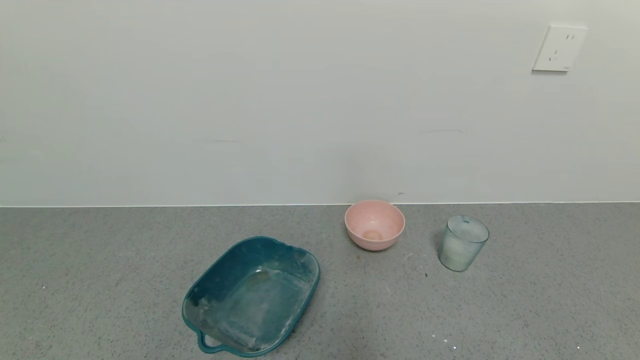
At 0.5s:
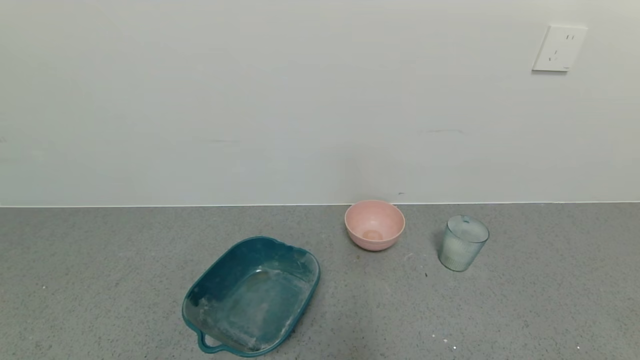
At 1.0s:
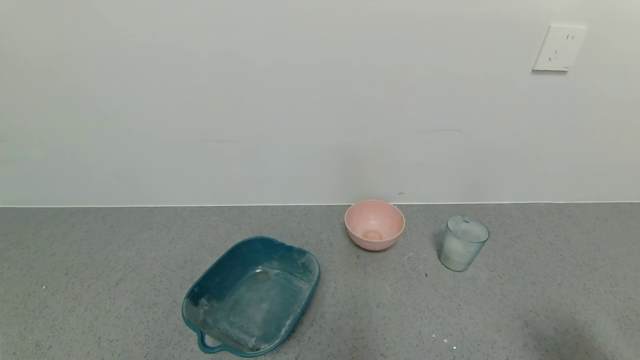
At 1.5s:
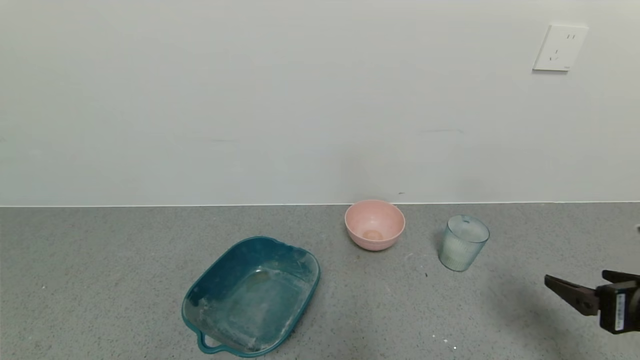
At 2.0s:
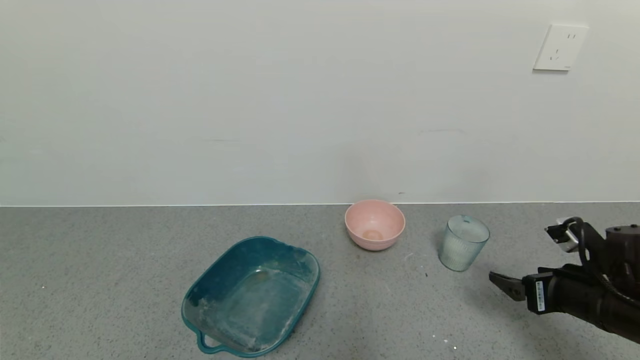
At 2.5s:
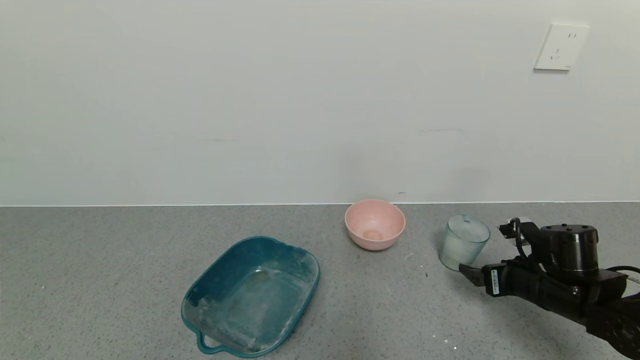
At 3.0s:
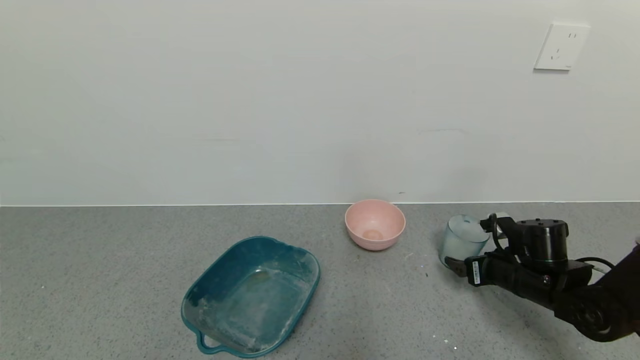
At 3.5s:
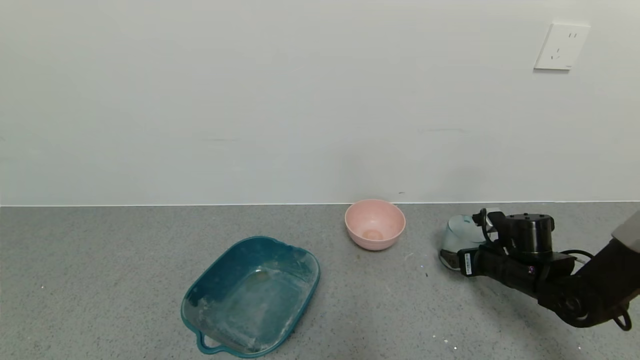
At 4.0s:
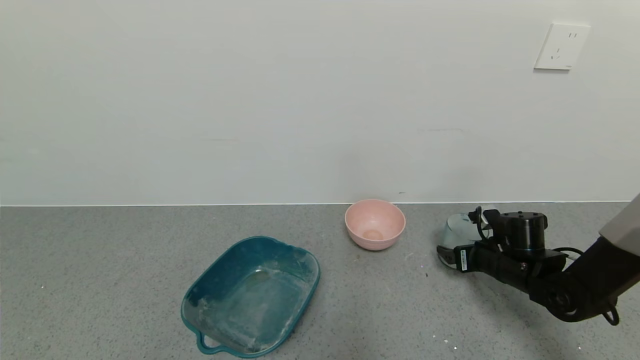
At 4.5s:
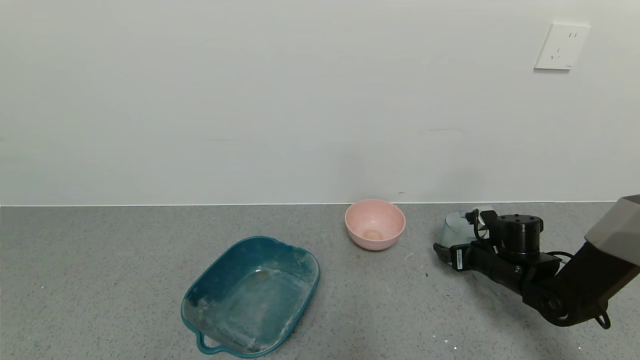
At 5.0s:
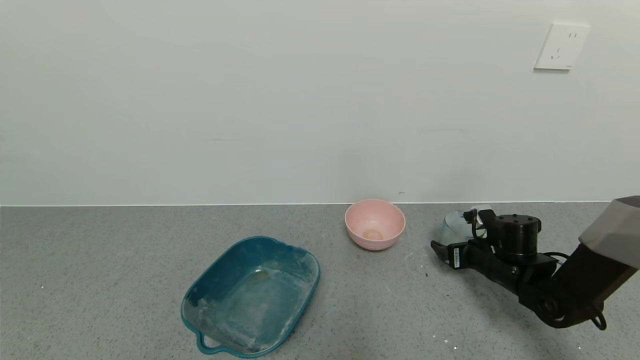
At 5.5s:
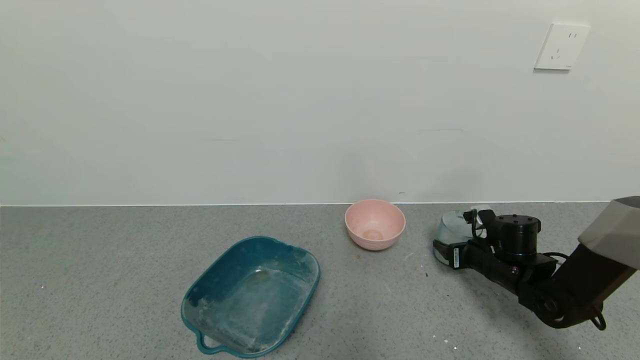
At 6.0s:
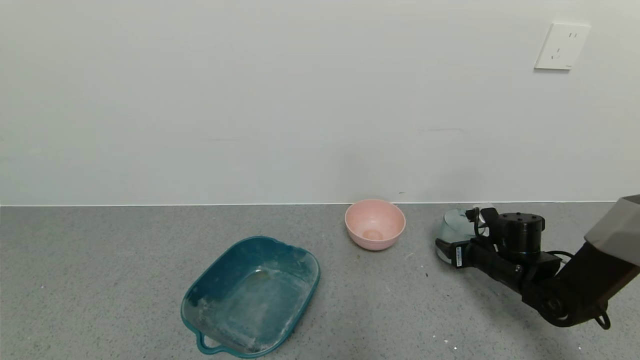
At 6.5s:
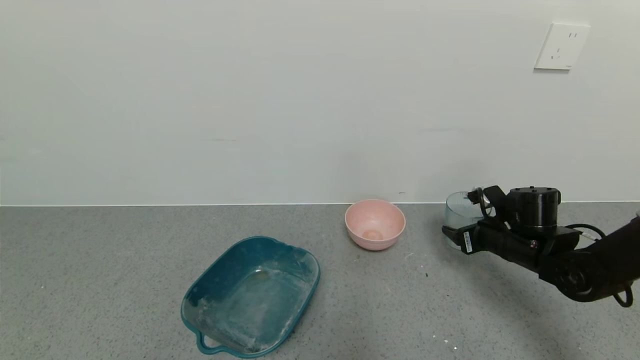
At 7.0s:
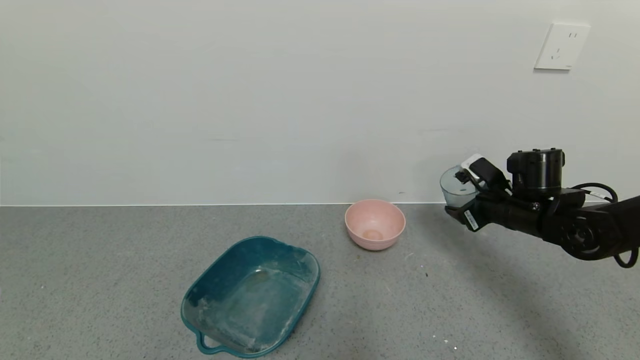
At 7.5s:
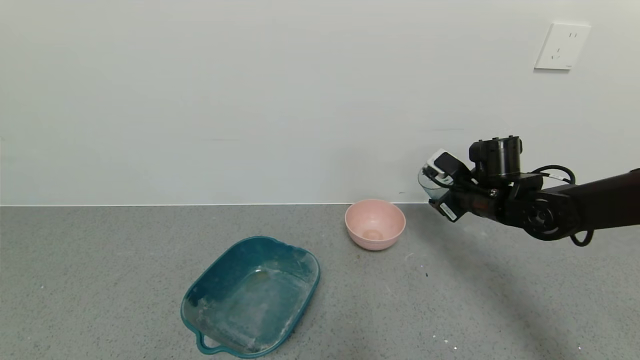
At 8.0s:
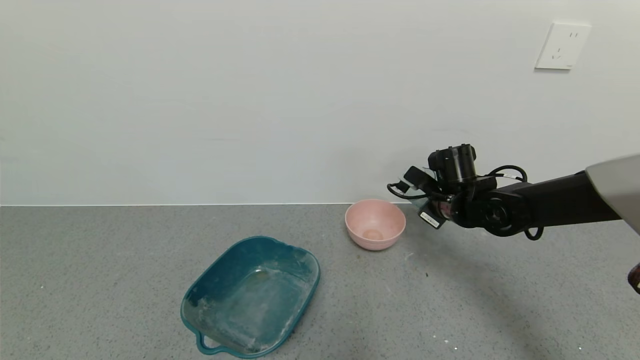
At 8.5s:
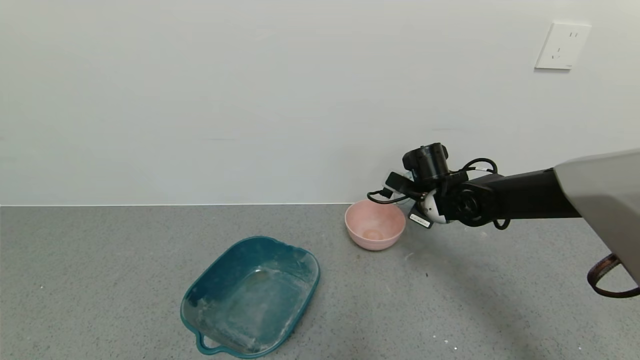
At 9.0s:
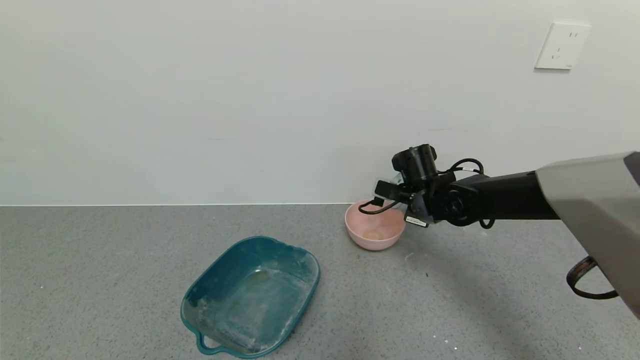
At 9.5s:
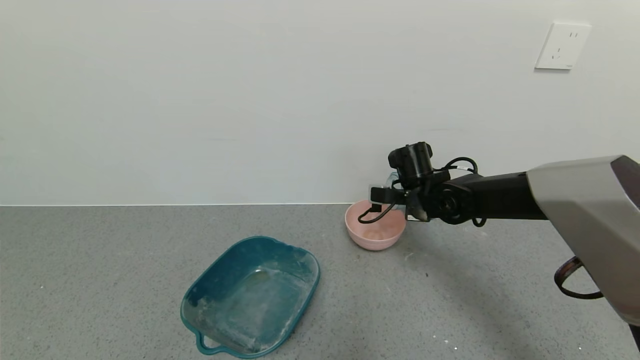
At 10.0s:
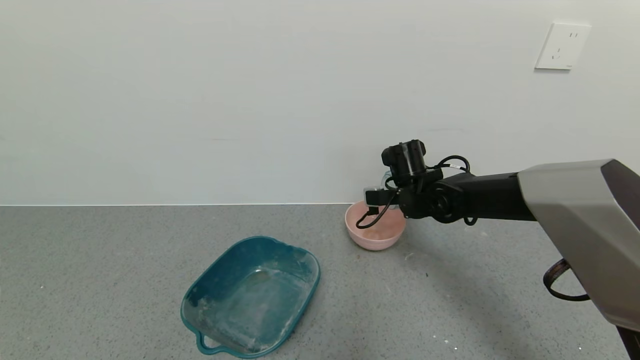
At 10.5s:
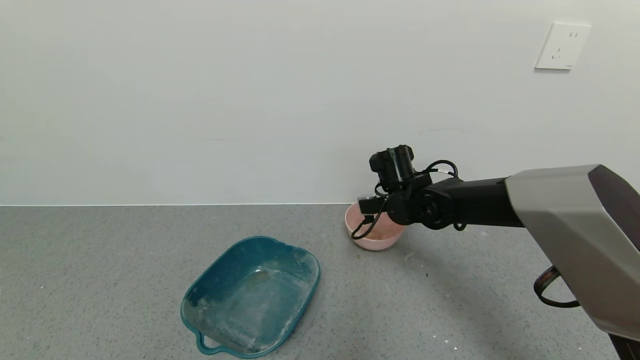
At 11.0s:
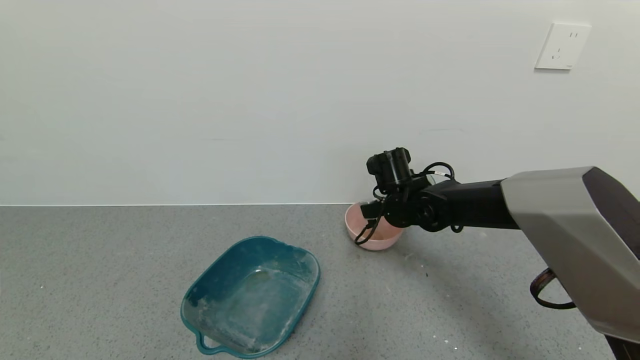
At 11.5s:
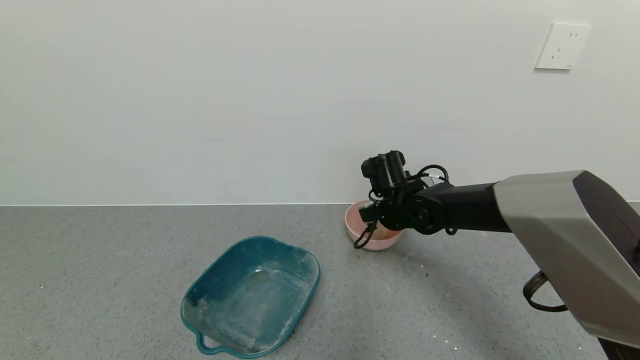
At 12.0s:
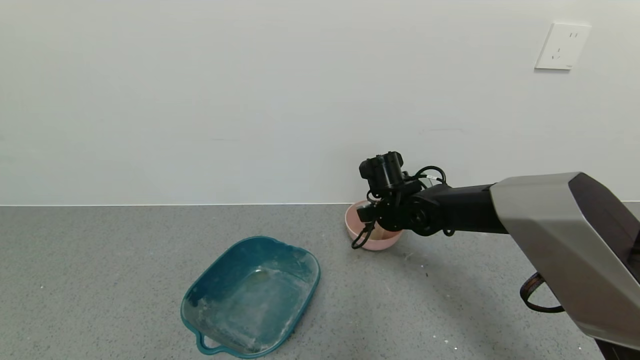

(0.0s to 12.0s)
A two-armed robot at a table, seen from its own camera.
Task of the whole recording: use a gripper to pick up the cup and pour the powder into a bowl or tray.
Step, 0.0s - 5.0s: Grasp the glass of powder with the right gripper.
0.0s - 2.0s: The right gripper is displaced forward by some 25 cm.
2.0s - 4.0s: The right gripper moves forward and downward, roughly 15 cm.
4.0s - 6.0s: The right gripper closes.
6.0s - 8.0s: The right gripper shifts about 15 cm upward, to the left and forward.
8.0s - 10.0s: The right gripper moves to the left, approximately 5 cm.
10.0s - 12.0s: The grippers make only small movements.

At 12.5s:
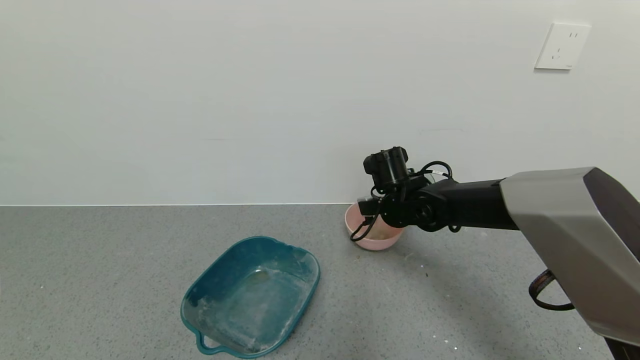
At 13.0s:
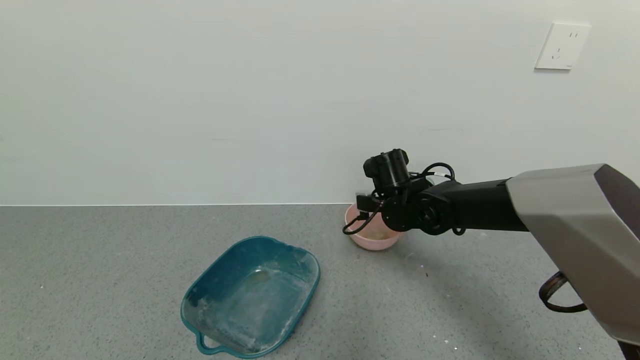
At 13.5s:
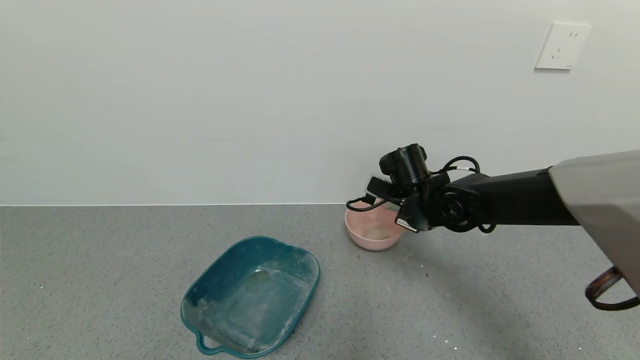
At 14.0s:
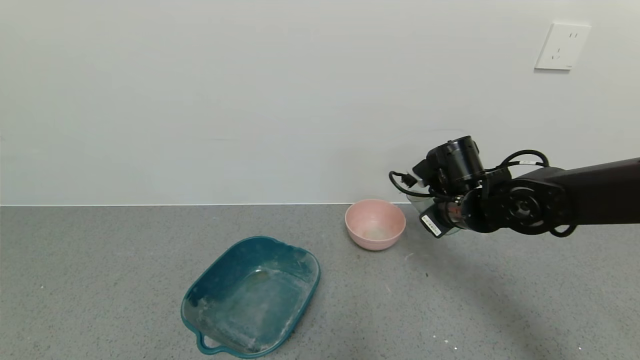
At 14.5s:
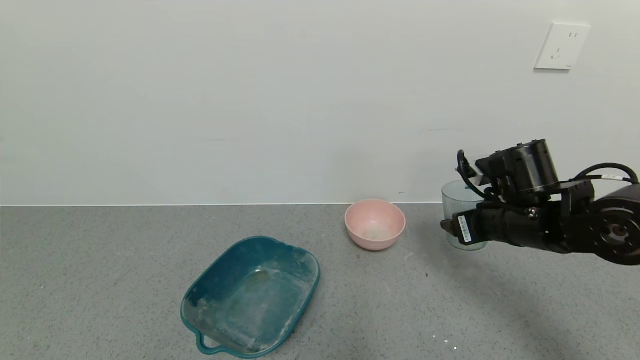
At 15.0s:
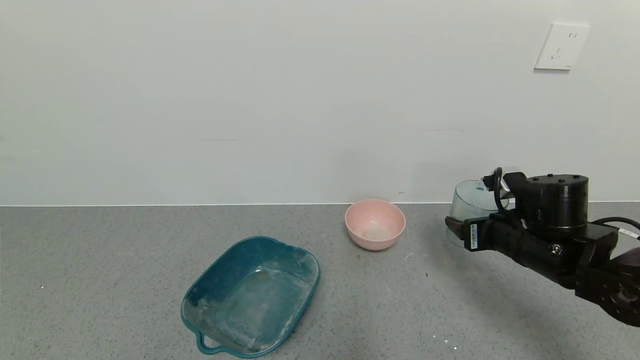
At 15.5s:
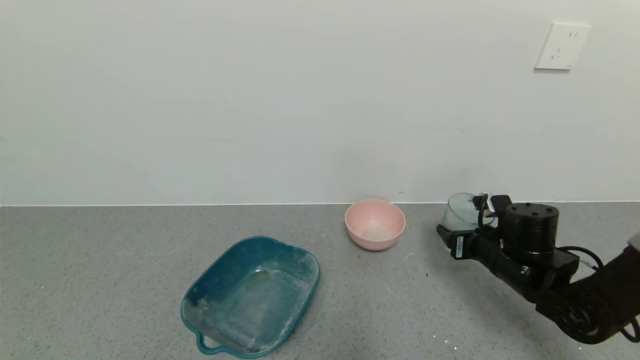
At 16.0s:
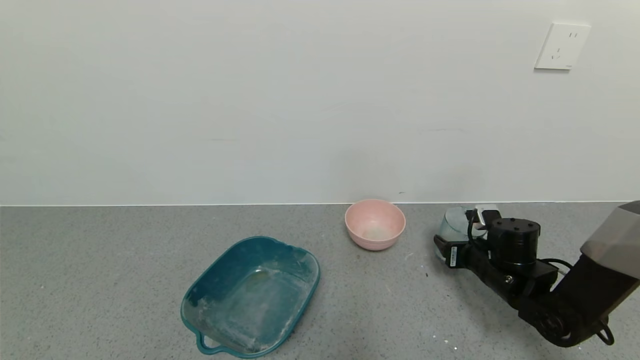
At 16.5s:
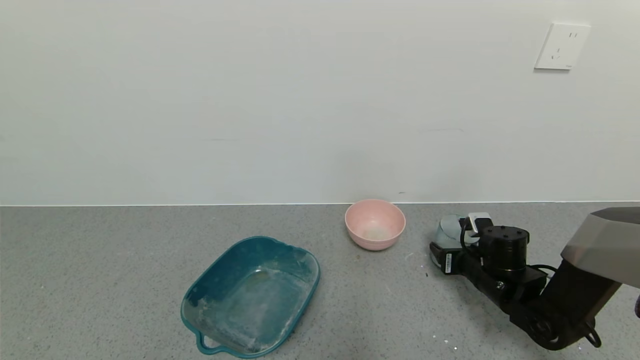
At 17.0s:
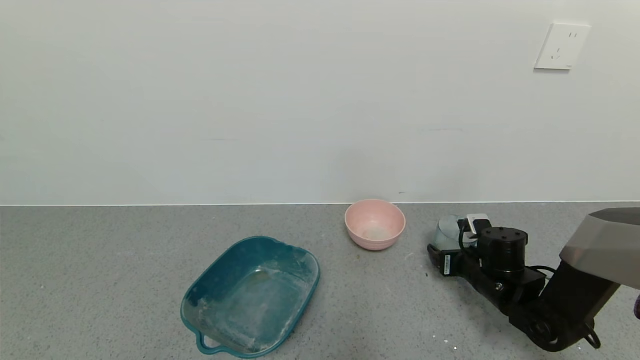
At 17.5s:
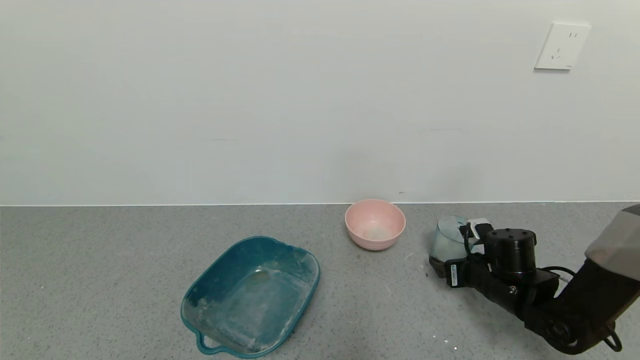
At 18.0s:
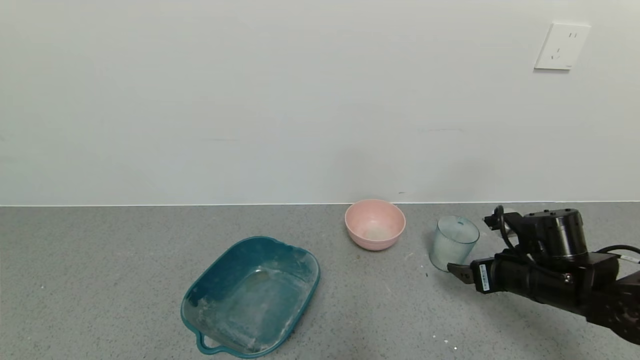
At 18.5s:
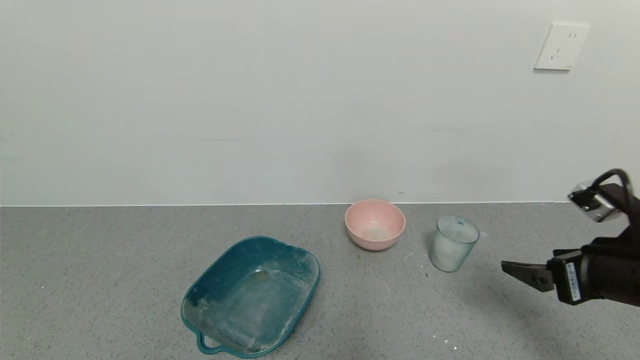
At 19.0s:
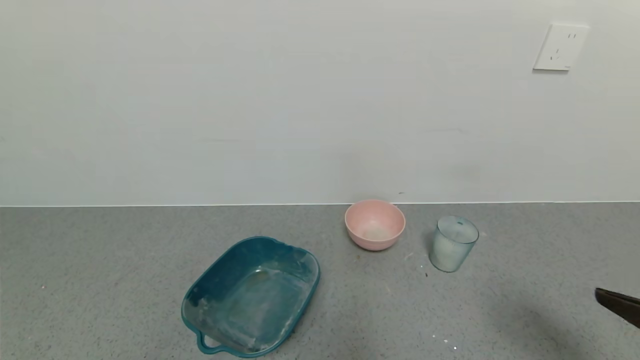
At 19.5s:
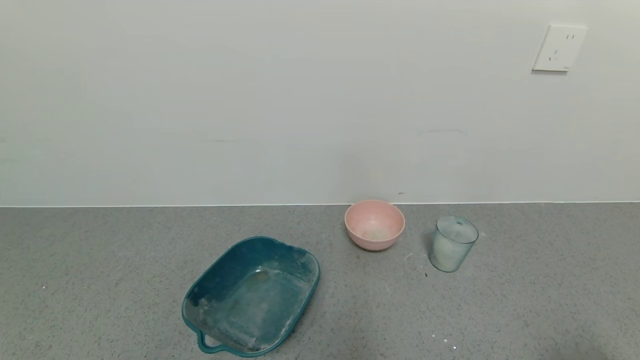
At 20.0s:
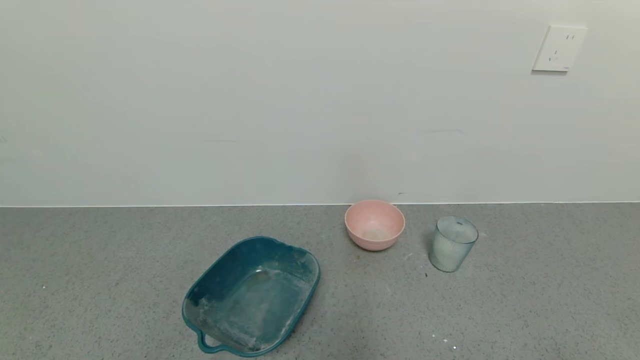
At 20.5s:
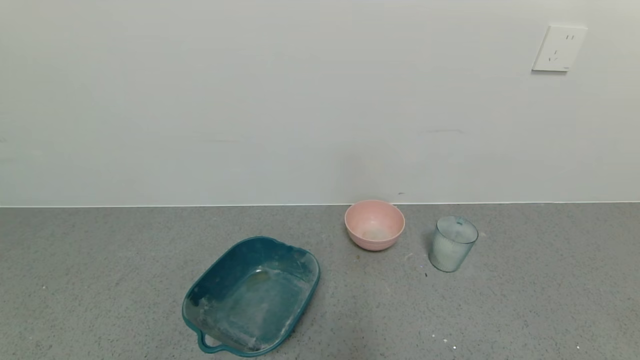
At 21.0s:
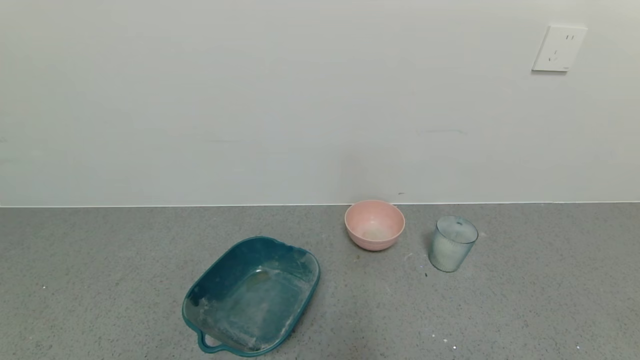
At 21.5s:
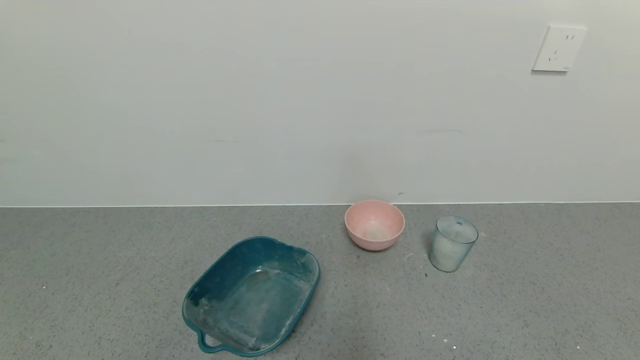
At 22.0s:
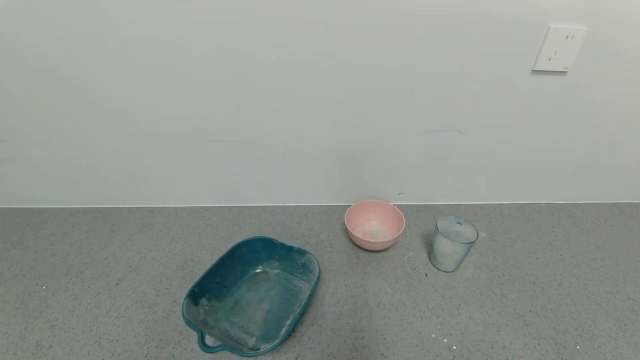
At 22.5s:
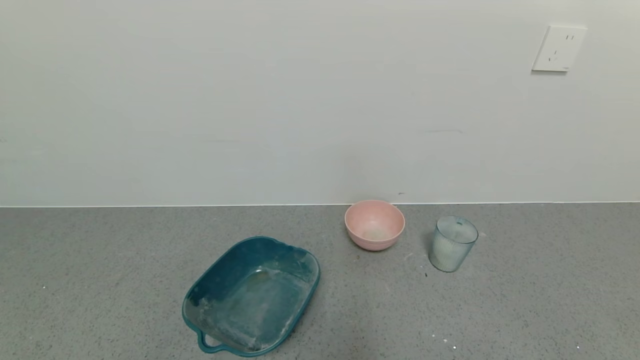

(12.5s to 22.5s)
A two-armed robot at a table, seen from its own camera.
Task of the whole recording: use a gripper to pick up the cup and pour the powder into a bowl or tray.
Step, 13.5s - 17.5s: Place the glass cup down with the right gripper.
12.5s - 14.5s: The right gripper goes roughly 15 cm to the right and backward.
14.5s - 16.5s: The right gripper travels downward by about 15 cm.
16.5s - 18.5s: The right gripper goes roughly 20 cm upward and backward, and opens.
18.5s - 20.5s: The right gripper heads backward, covering about 25 cm.
